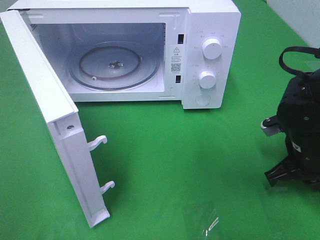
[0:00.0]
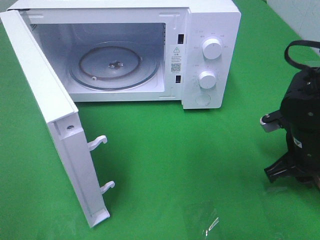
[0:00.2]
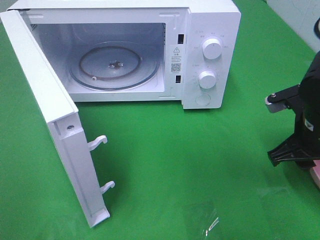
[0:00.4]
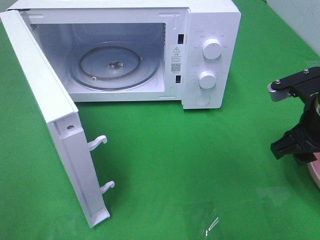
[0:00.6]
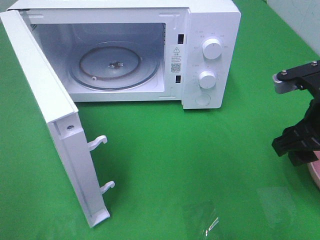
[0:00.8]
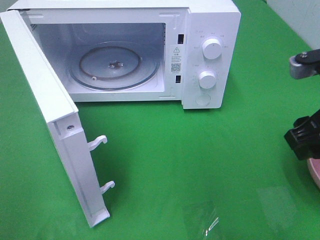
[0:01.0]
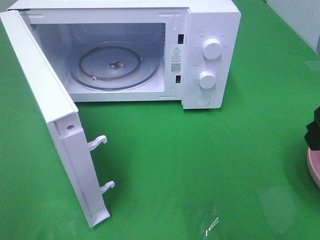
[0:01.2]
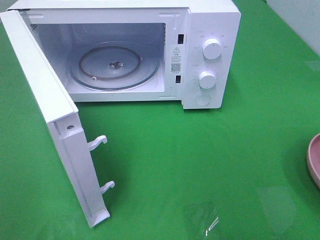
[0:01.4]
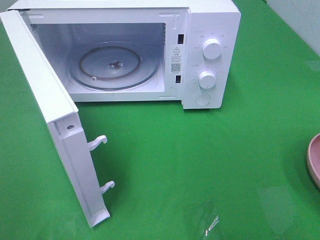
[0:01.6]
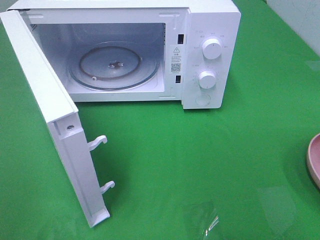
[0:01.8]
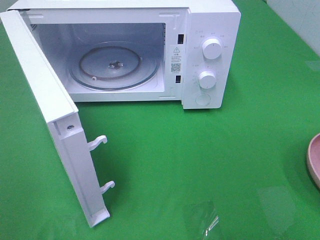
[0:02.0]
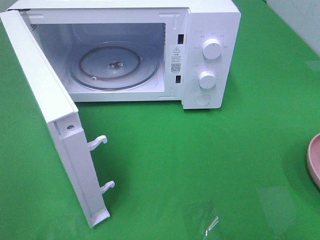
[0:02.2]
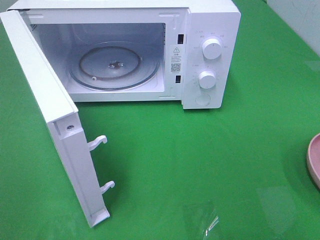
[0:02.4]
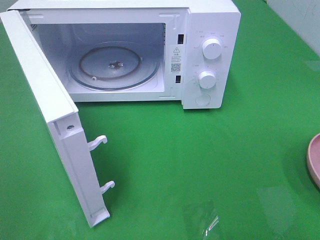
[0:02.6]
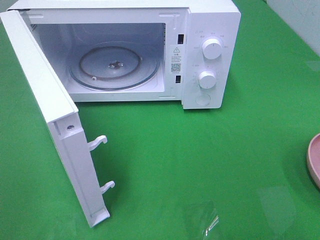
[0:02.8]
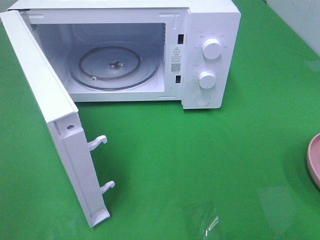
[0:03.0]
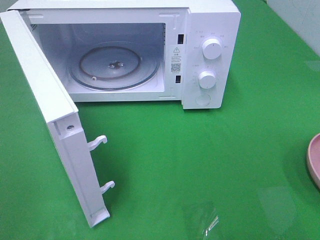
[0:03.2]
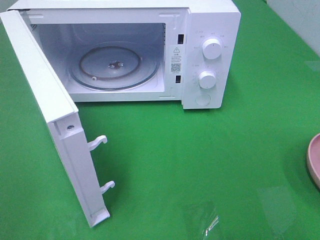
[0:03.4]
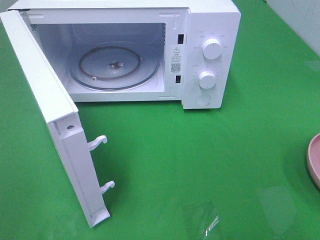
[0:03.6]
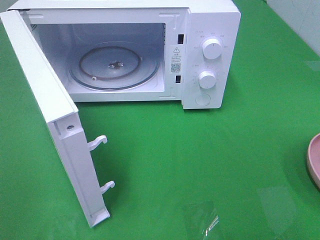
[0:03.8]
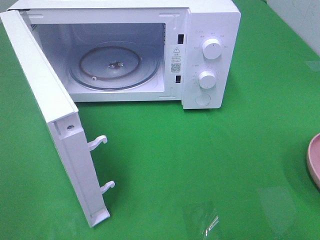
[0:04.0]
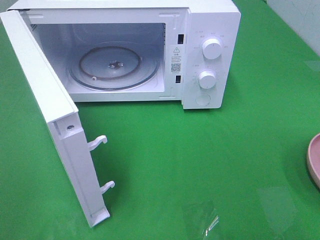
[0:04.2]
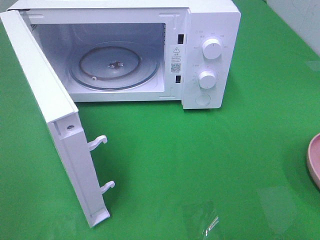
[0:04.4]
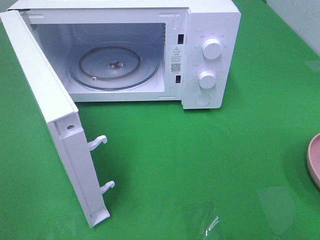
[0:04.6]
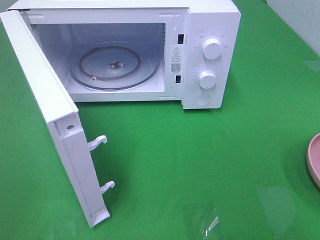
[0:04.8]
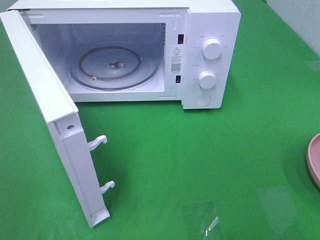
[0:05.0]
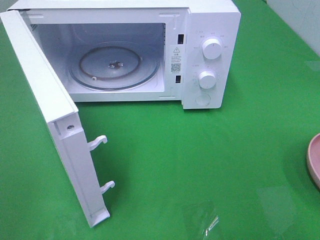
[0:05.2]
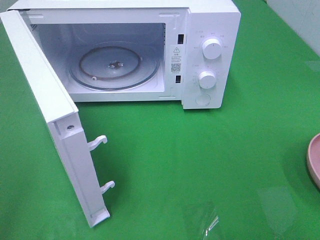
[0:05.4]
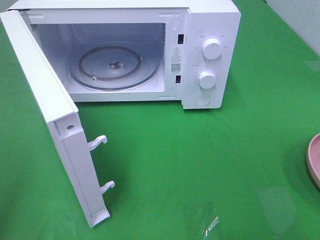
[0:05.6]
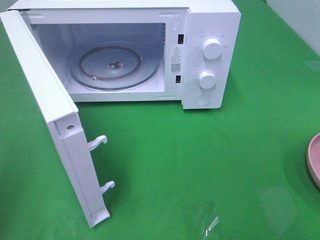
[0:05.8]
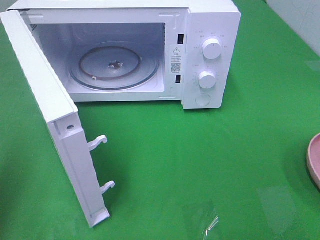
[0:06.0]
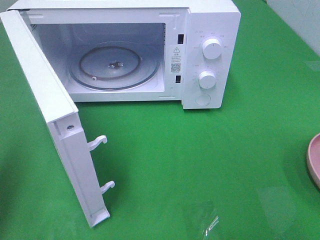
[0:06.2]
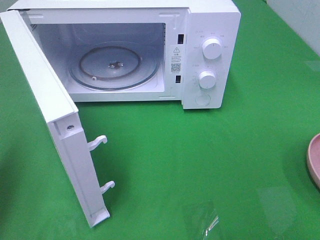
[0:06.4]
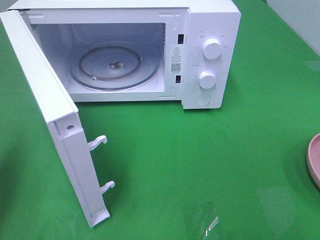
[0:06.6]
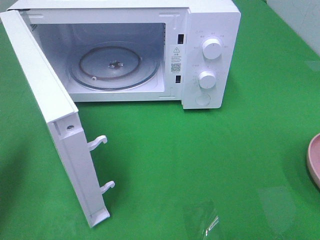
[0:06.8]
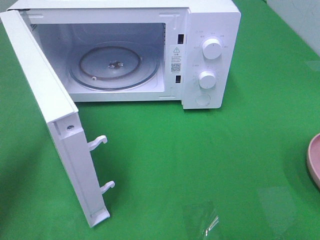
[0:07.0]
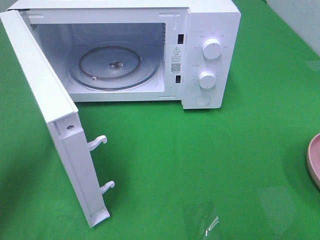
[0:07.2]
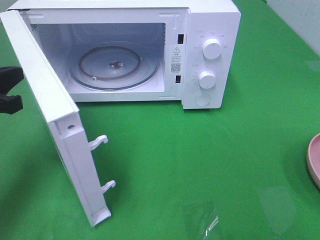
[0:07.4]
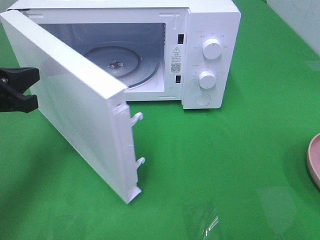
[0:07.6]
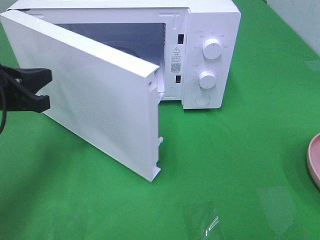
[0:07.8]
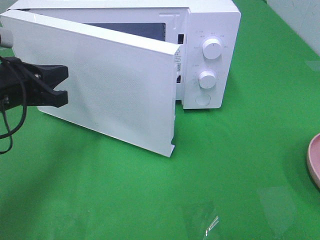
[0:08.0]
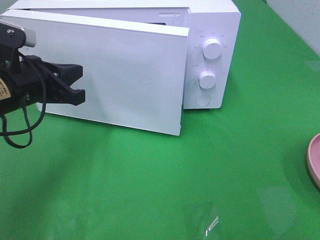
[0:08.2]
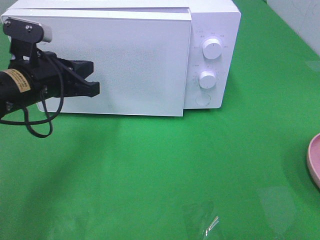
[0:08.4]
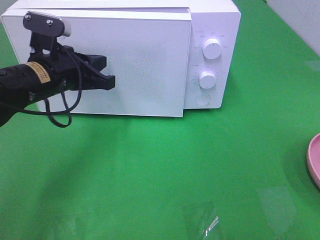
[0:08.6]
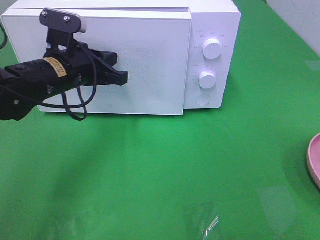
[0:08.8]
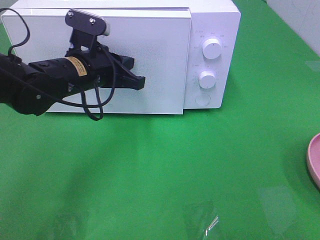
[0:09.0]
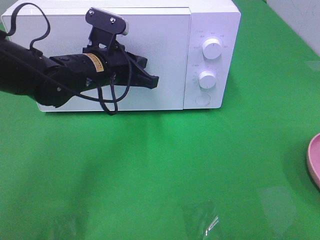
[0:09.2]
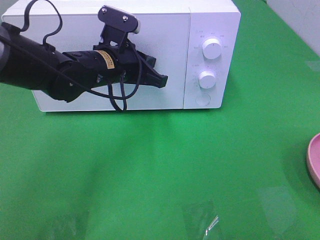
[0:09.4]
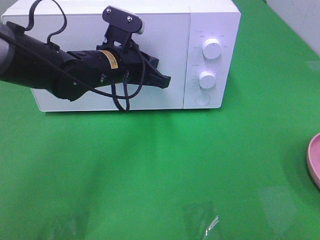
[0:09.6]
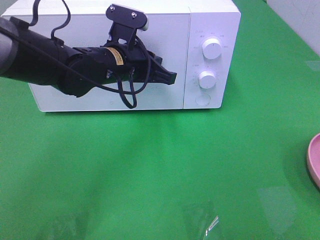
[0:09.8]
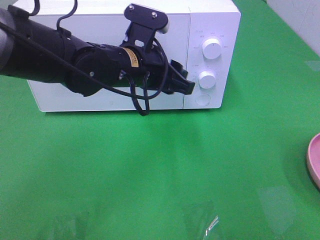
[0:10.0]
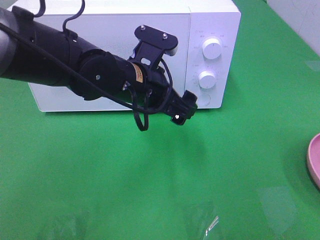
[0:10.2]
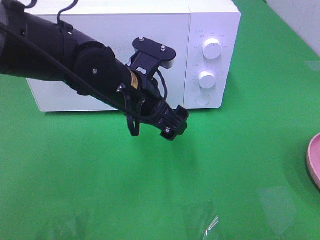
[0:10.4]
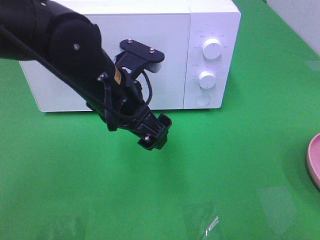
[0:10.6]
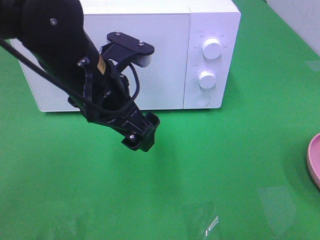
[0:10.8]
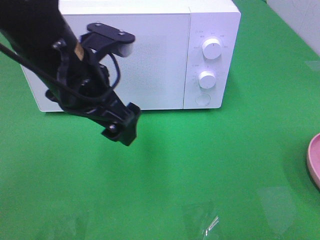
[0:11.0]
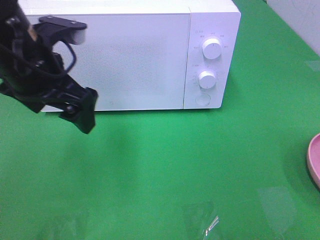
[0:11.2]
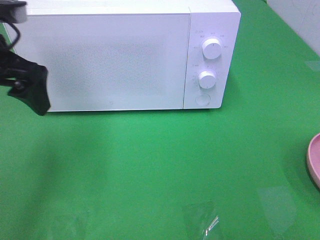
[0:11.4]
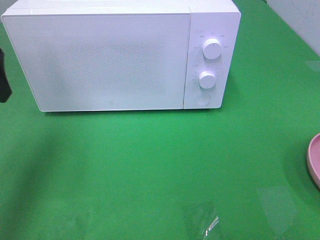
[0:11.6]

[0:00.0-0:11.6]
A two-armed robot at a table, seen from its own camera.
Task of the whole recording: Heat the burger.
Step, 0.2 to 9.8 s: Left hand: close the microwave door.
0.0 to 1.4 s: The right gripper is displaced upward and backward by about 20 cm, and opens up.
2.8 to 4.4 s: Both grippers stay about where they are.
5.8 to 7.2 s: The left gripper is displaced forward and downward by some 15 cm.
7.2 to 8.8 s: The left gripper shifts approximately 20 cm to the right and forward.
8.8 to 10.2 s: The left gripper goes some 10 cm to the right, and opens.
10.2 to 11.6 s: The left gripper heads to the left and upward, covering roughly 25 cm.

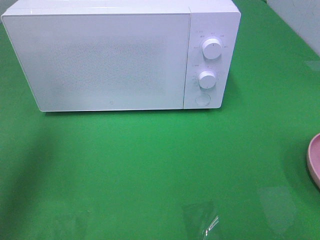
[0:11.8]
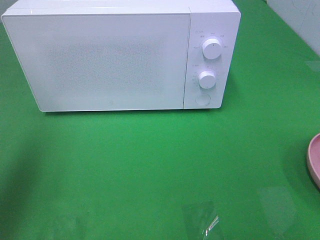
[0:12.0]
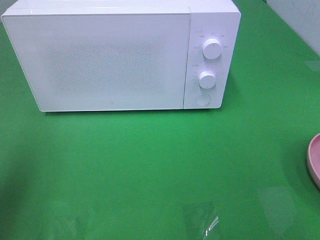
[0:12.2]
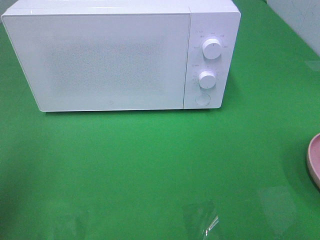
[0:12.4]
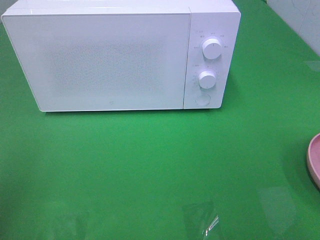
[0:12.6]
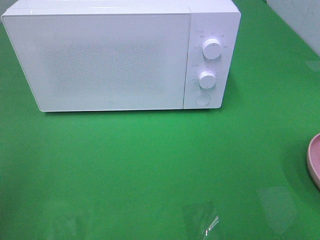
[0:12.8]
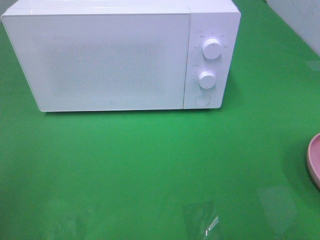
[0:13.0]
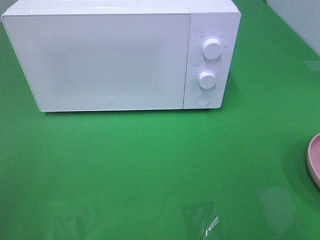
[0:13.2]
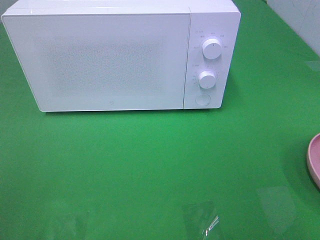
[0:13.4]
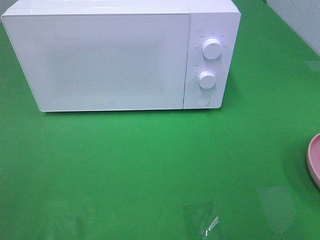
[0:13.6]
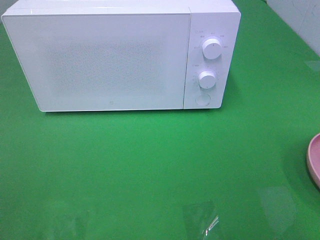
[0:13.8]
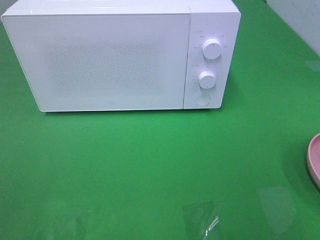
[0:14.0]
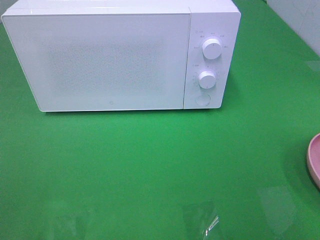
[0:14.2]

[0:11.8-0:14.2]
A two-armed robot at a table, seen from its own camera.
Task of the whole recording: Heat the burger.
11.8 to 13.0 s: The left gripper heads backward, covering about 20 cm.

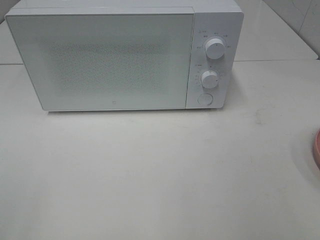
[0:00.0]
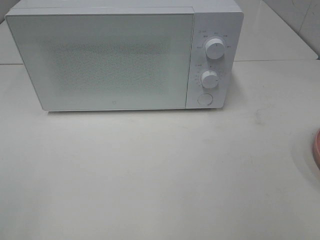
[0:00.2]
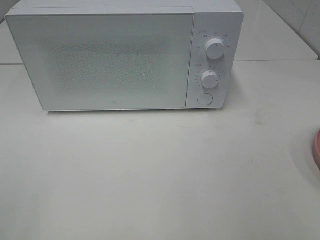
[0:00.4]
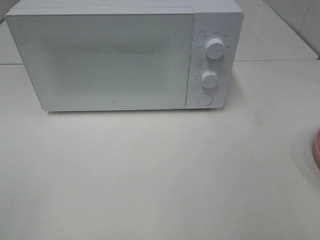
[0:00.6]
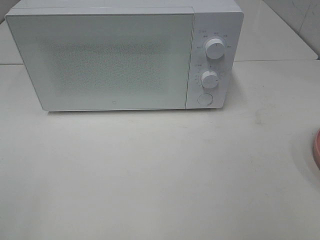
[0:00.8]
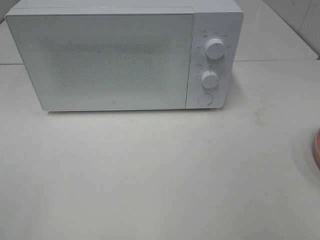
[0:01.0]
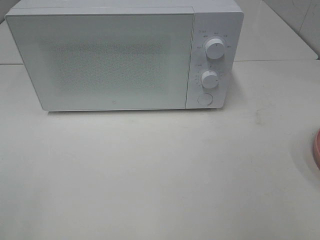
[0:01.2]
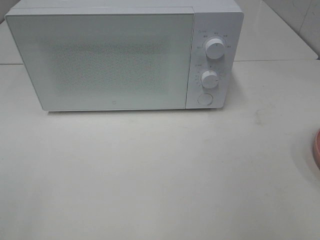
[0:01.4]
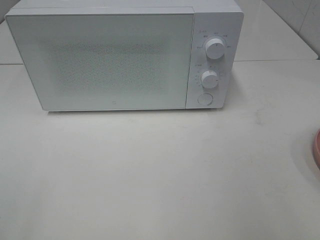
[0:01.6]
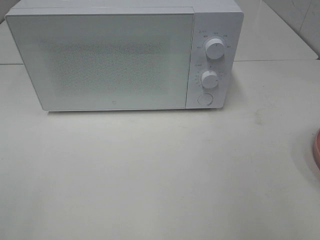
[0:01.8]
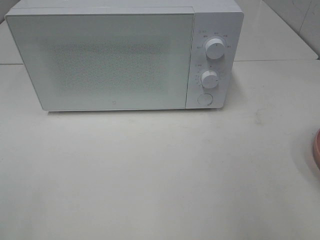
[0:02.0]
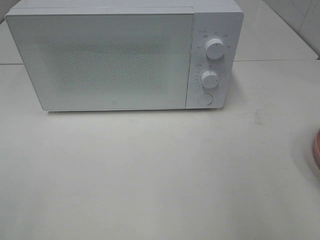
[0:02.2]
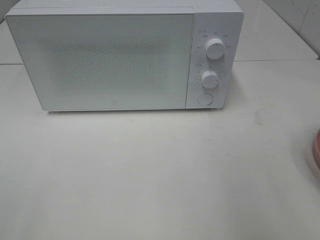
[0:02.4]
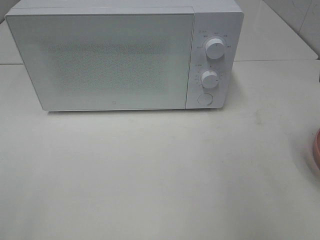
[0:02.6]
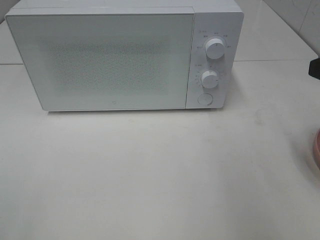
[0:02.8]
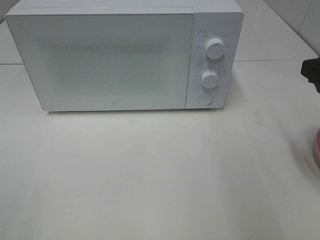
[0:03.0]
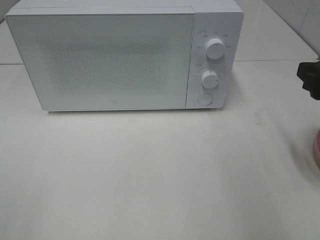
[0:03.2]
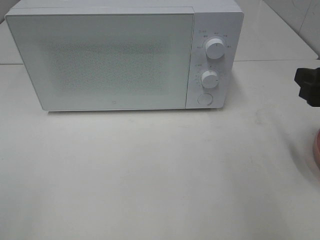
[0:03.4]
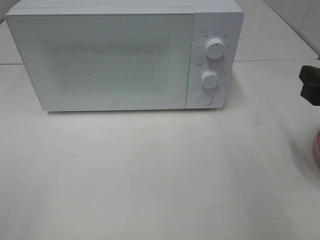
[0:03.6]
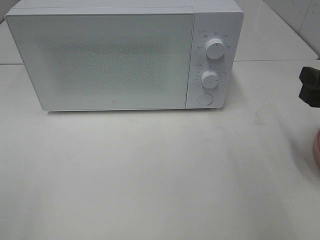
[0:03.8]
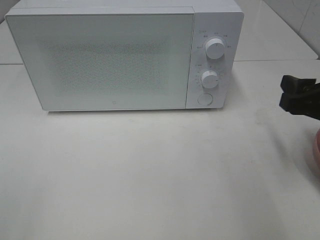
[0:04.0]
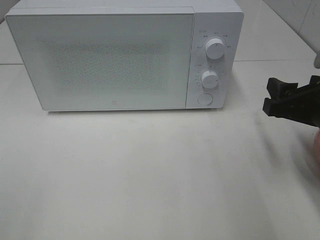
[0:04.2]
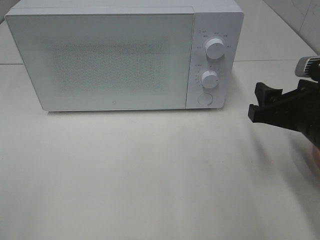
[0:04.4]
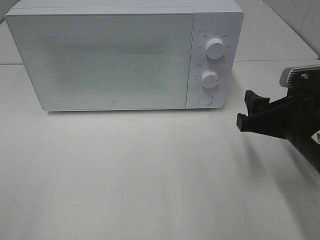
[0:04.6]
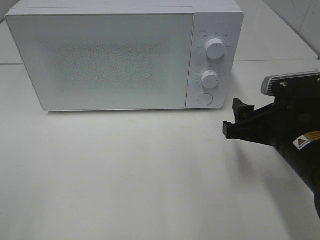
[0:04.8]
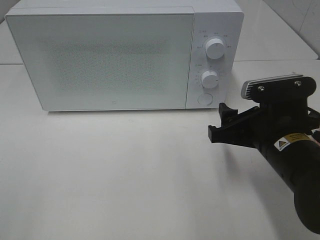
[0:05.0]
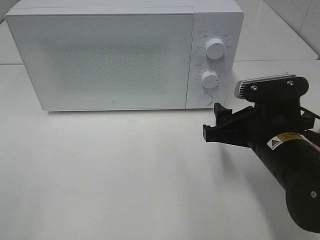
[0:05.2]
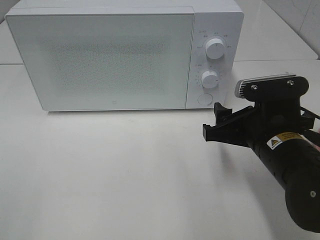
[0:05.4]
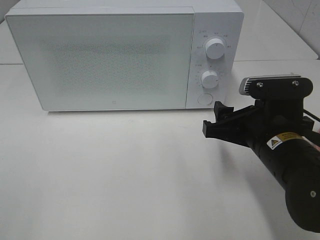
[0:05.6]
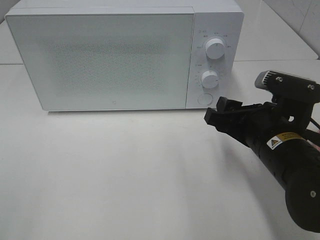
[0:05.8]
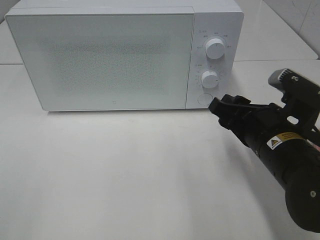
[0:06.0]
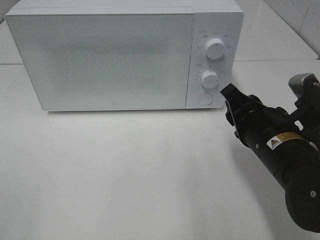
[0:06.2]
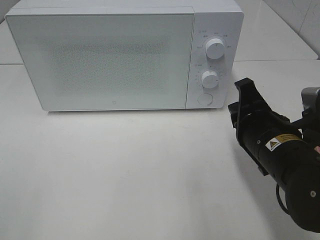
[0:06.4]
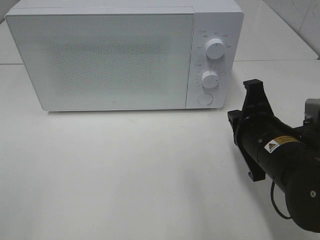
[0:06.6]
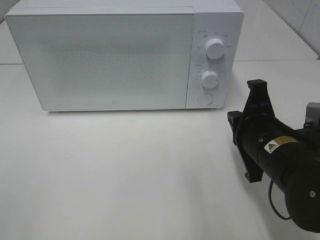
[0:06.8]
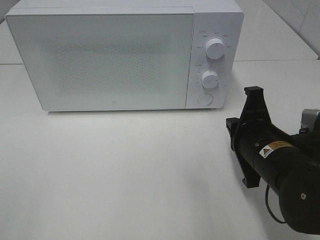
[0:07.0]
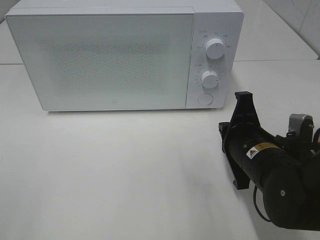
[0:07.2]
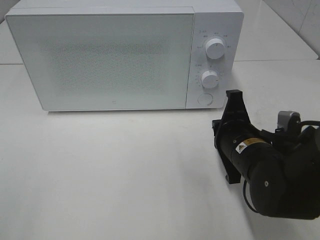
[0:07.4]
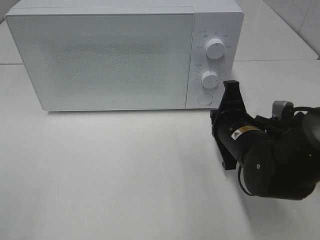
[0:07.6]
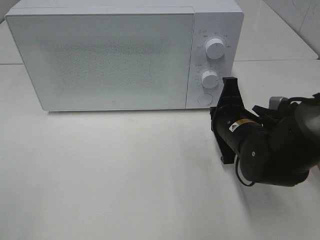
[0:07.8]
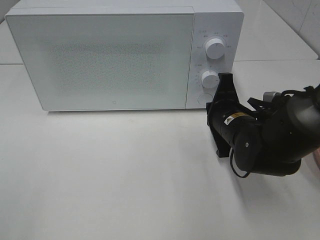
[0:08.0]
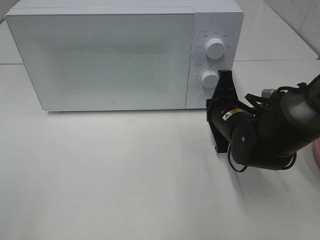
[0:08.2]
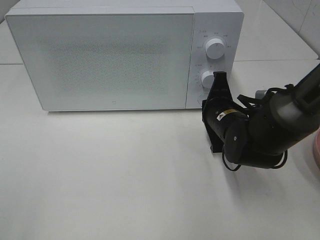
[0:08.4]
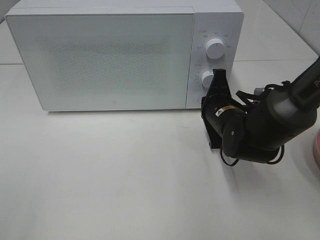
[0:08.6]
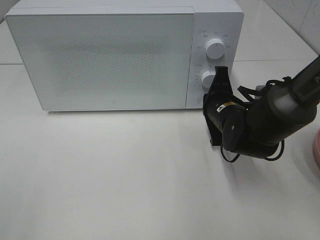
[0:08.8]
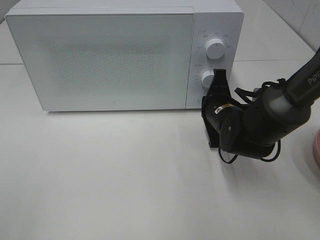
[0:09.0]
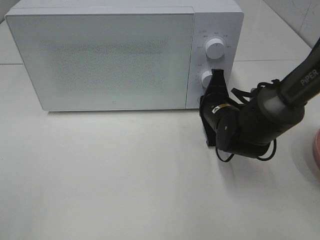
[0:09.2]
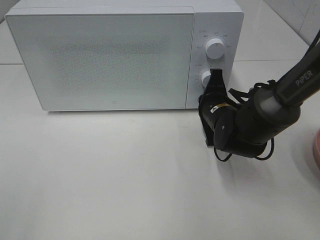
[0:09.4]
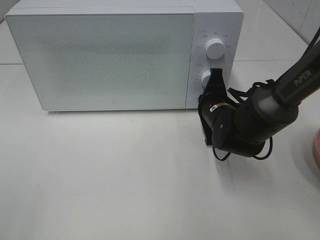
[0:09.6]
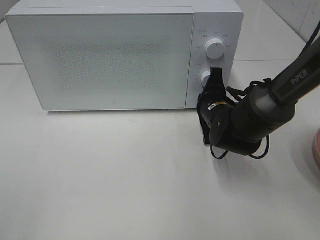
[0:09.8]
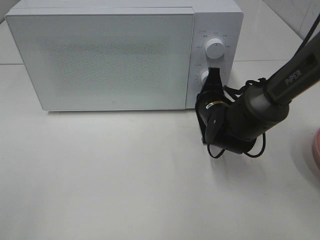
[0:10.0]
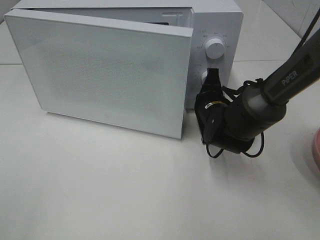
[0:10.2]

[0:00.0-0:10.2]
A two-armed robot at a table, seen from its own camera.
Task of the whole recording: Heat the burger.
1.4 to 3.0 s: The right gripper goes about 15 cm forward.
3.0 to 4.4 s: The right gripper is displaced downward and to the left by some 10 cm.
4.4 to 5.8 s: The right gripper heads to the left, covering some 5 cm.
5.8 to 7.2 s: The right gripper closes its fingers.
7.2 to 8.8 s: The right gripper is displaced forward by about 10 cm.
8.8 to 10.2 s: The grippers make only small movements.
